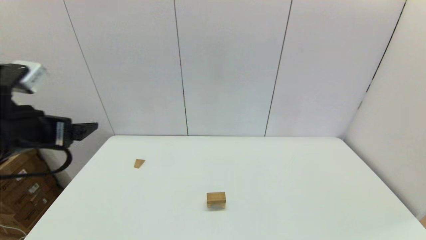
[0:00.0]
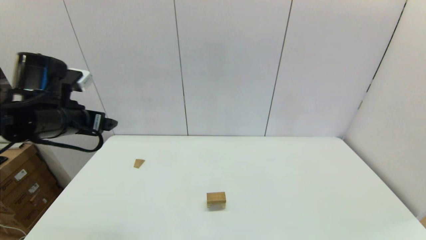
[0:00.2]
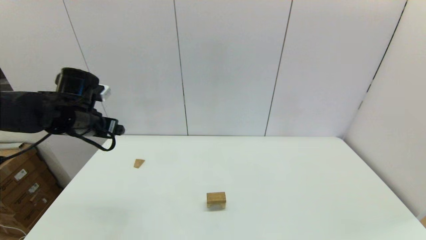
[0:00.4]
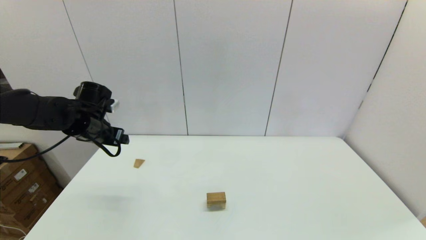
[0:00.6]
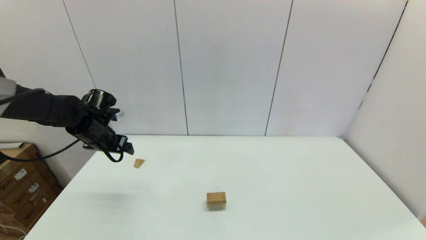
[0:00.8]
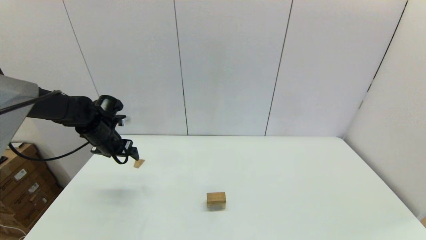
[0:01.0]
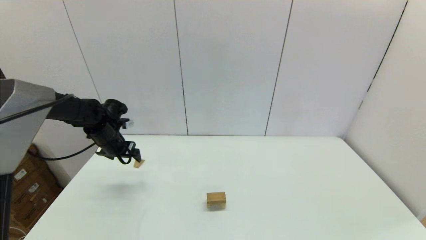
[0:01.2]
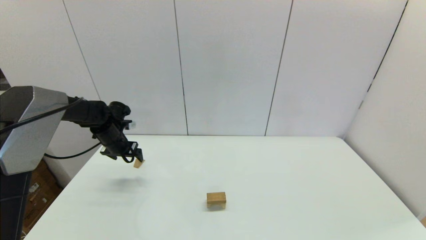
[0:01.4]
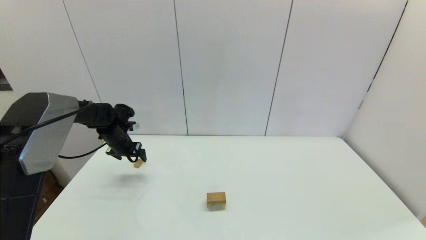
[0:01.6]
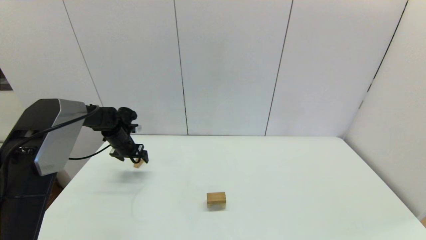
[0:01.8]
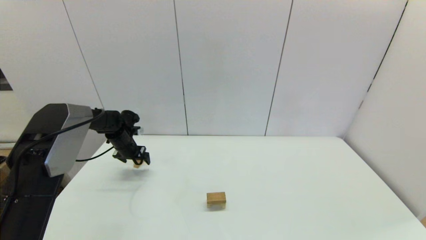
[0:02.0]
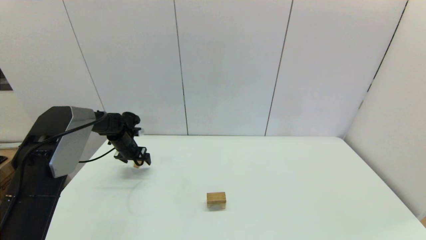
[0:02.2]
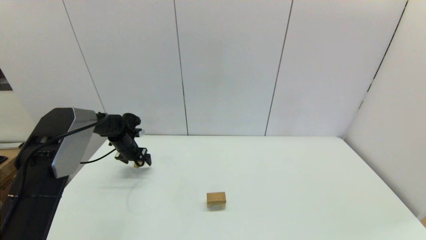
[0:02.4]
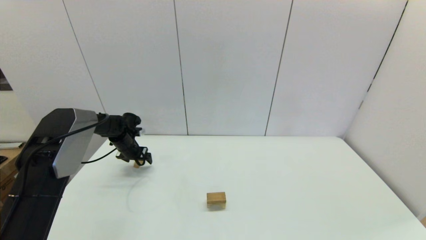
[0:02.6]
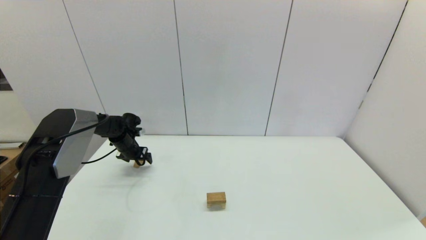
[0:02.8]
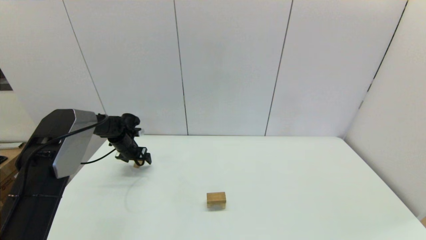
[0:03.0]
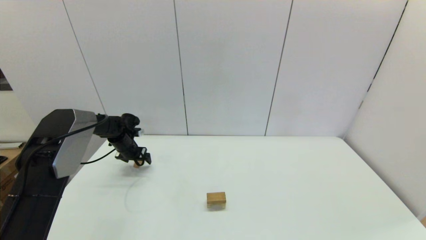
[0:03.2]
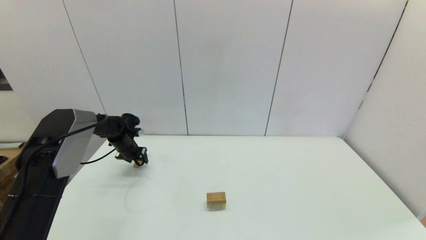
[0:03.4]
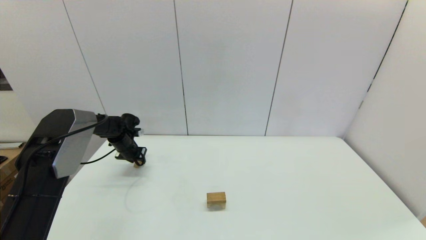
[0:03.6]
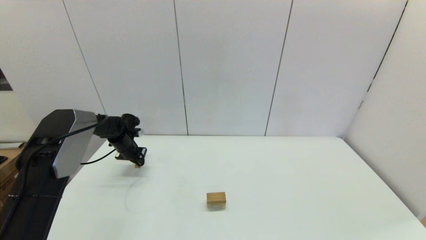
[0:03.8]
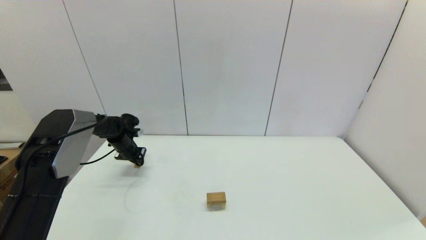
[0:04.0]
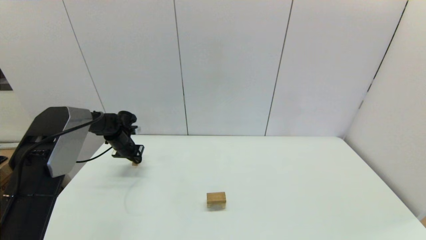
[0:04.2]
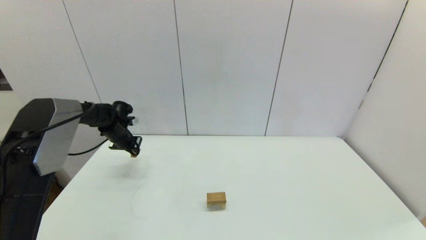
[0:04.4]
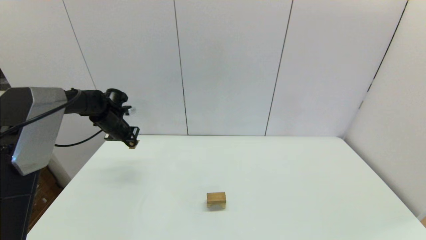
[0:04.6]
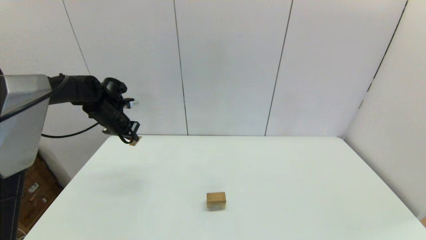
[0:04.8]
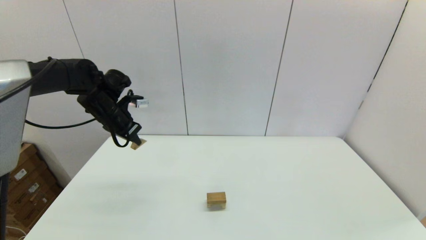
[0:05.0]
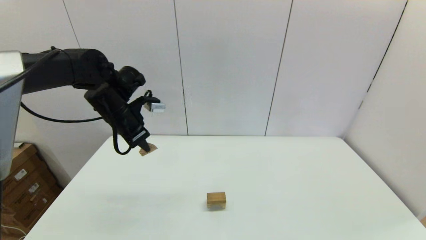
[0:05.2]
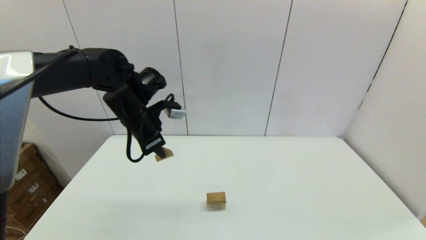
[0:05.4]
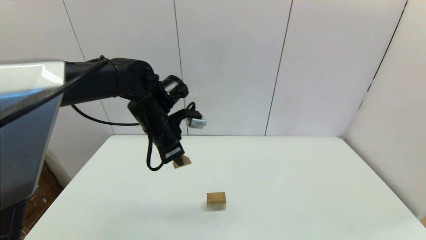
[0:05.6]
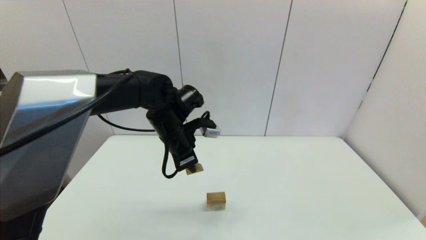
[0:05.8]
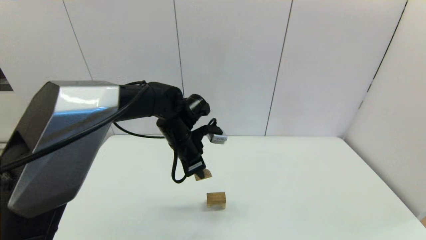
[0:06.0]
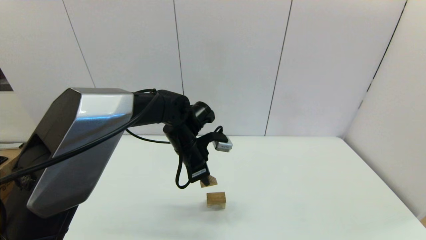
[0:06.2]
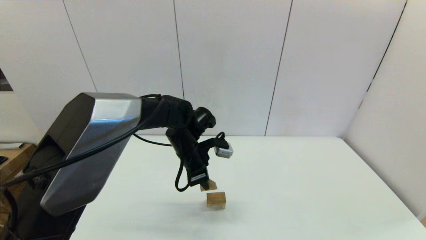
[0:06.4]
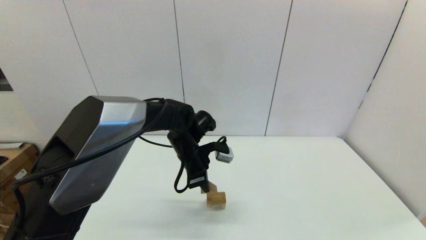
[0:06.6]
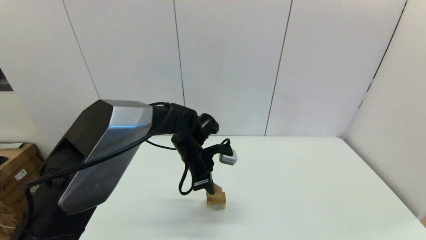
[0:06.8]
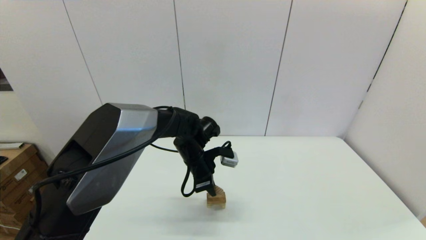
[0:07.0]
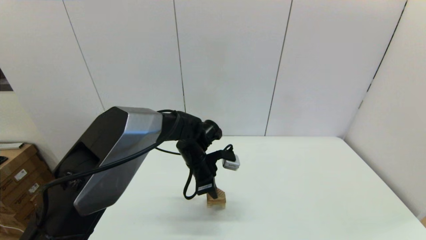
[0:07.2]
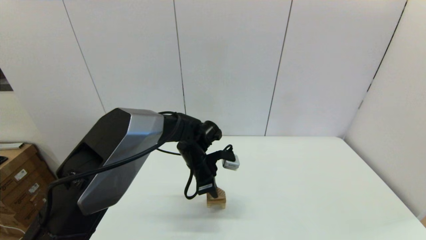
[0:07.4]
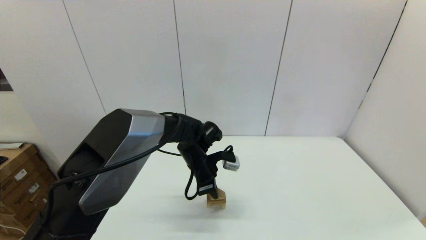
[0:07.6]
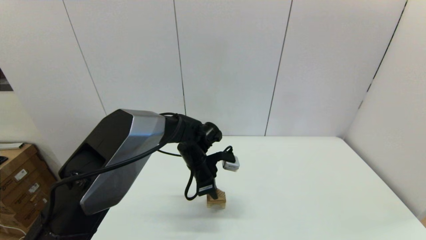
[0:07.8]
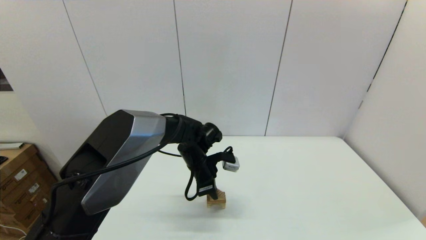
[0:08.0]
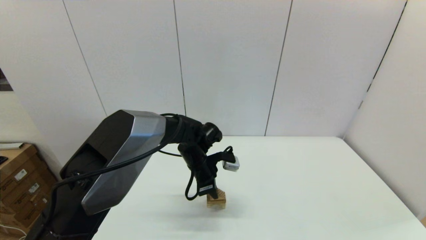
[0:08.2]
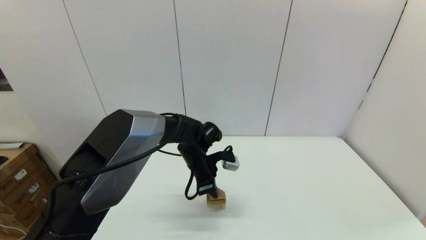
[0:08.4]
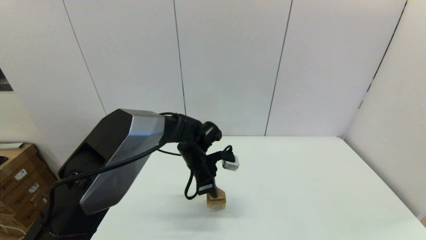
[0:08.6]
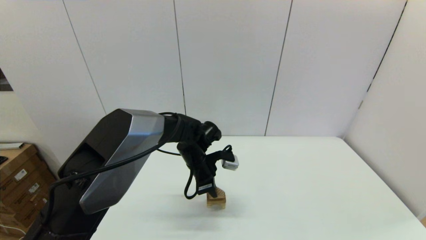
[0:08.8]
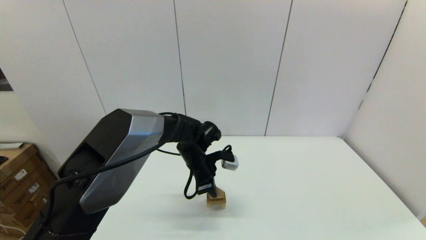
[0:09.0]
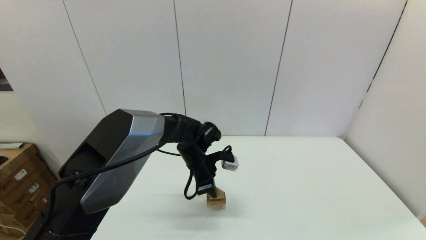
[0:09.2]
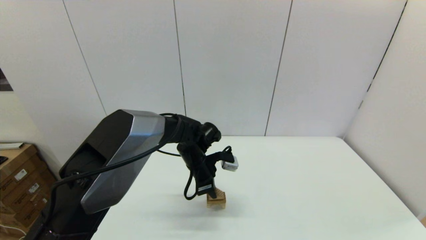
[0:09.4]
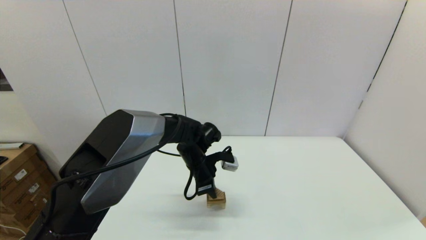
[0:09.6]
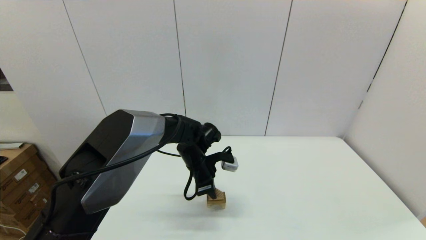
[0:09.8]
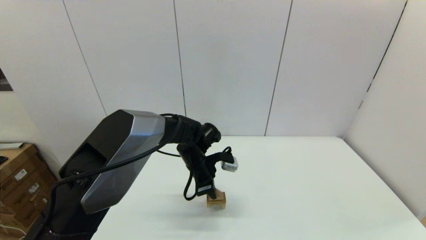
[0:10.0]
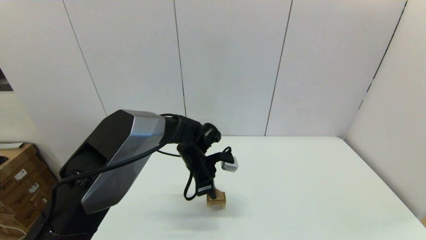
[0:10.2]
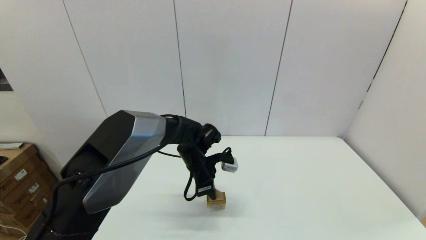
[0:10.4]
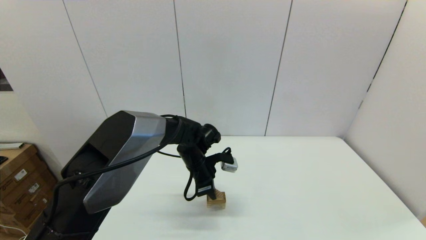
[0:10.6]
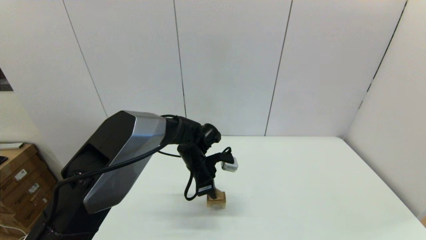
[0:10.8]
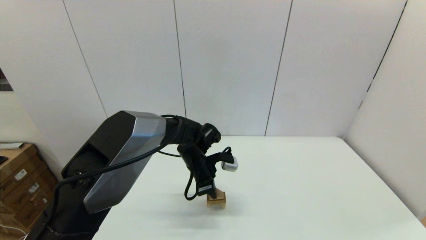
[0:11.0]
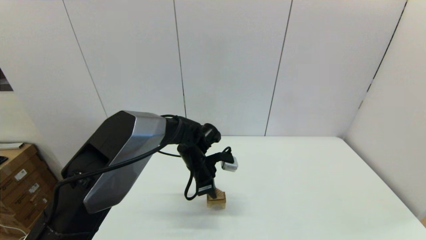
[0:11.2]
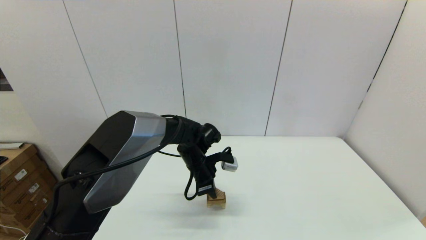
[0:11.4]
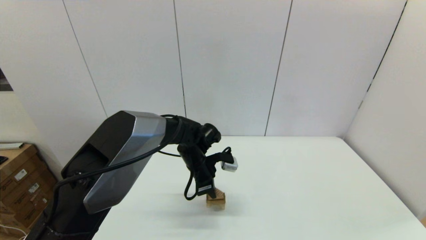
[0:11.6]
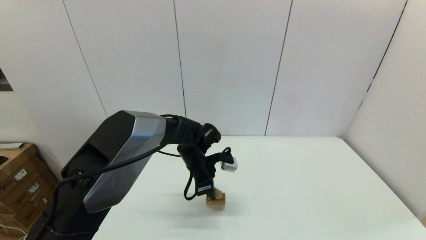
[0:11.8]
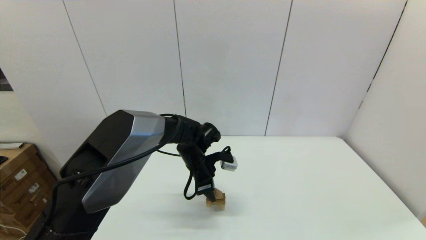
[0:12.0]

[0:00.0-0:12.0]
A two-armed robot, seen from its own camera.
Task of the whole recording: place the arched building blocks in the center of the table, set up the rectangular building blocks, and then set up the triangular building blocks.
Step, 0:00.0 to 0:03.6: Grasp the triangle-shaped block with the left gripper.
0:00.0 to 0:01.6: The left gripper shifts roughly 30 cm forward and downward.
0:01.6 to 0:03.0: The left gripper travels downward by about 5 cm.
0:03.0 to 0:04.4: The left gripper heads upward, covering roughly 5 cm, and closes up.
0:04.4 to 0:06.0: The left gripper travels to the right and backward by roughly 25 cm.
0:06.0 to 0:07.6: The left gripper heads downward, covering some 10 cm.
0:07.6 to 0:10.4: Both grippers stay about where they are.
0:10.4 to 0:12.0: The left gripper opens its fingers.

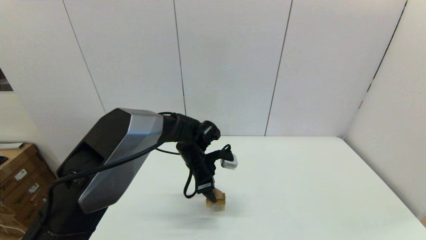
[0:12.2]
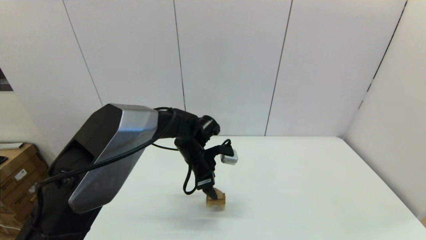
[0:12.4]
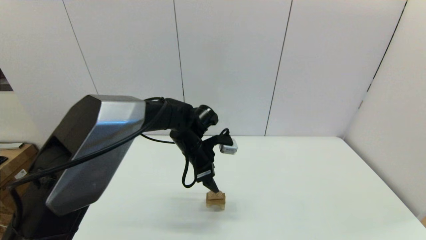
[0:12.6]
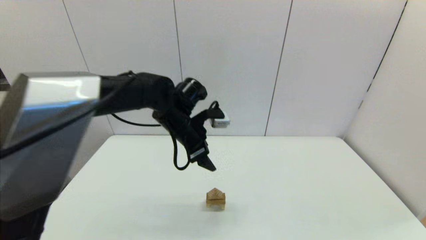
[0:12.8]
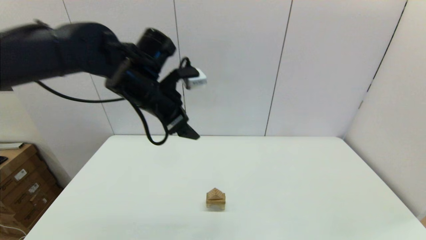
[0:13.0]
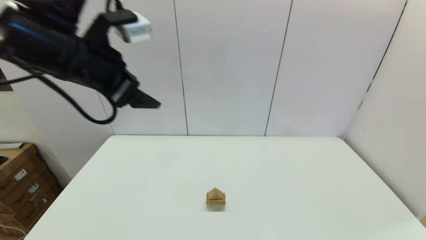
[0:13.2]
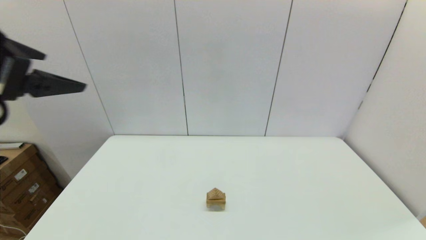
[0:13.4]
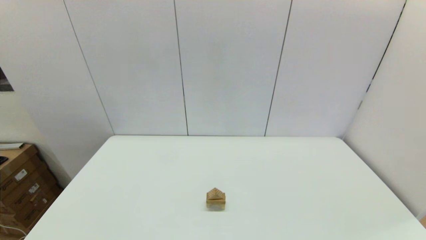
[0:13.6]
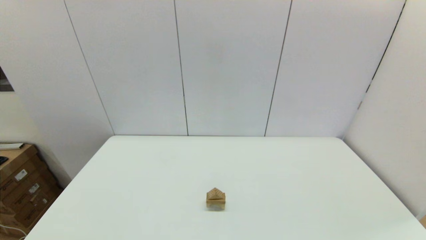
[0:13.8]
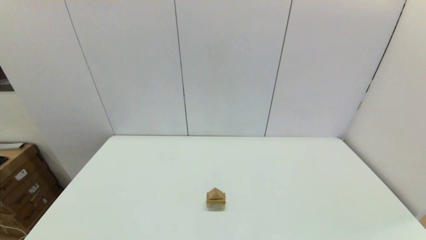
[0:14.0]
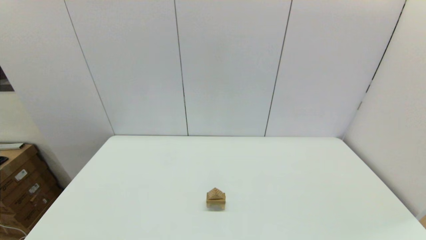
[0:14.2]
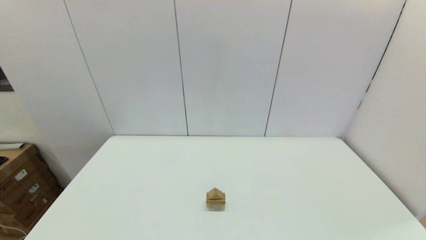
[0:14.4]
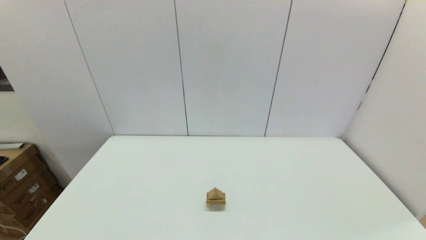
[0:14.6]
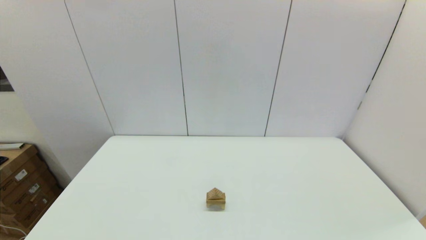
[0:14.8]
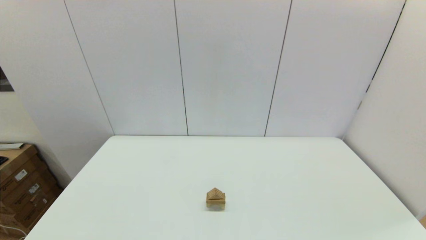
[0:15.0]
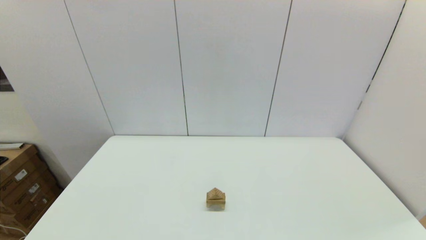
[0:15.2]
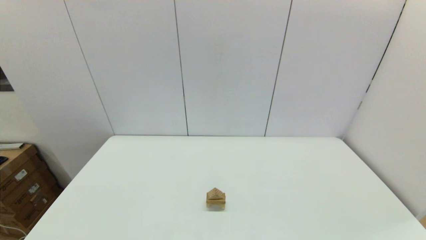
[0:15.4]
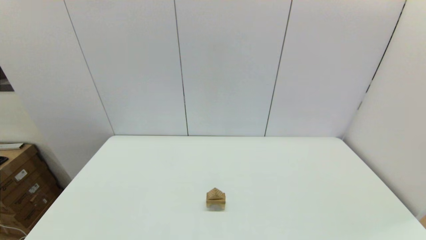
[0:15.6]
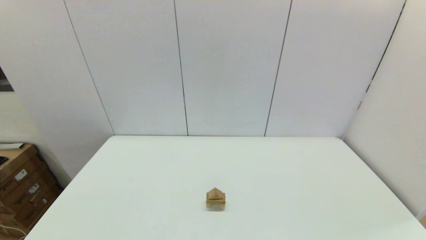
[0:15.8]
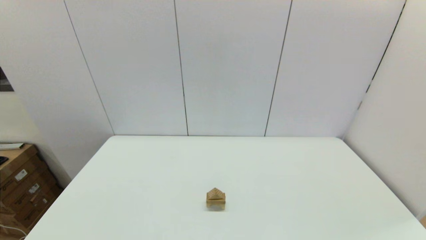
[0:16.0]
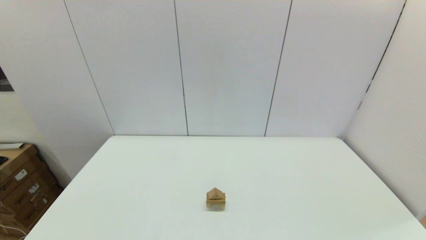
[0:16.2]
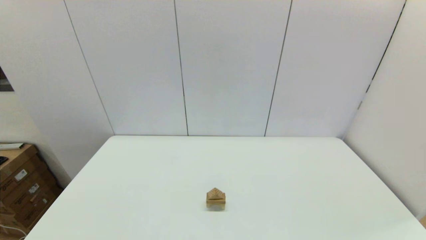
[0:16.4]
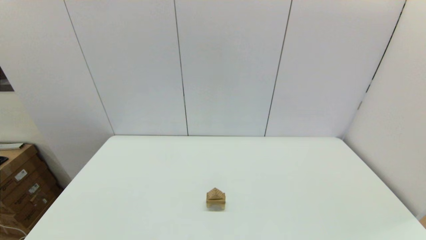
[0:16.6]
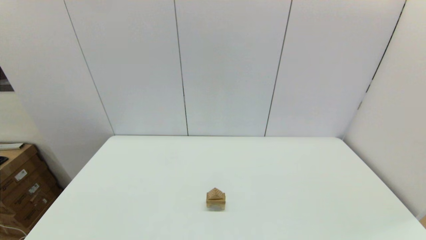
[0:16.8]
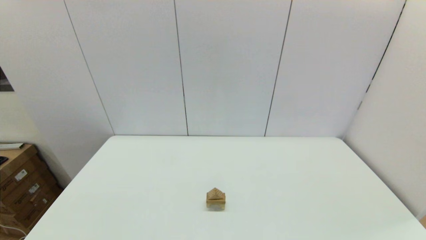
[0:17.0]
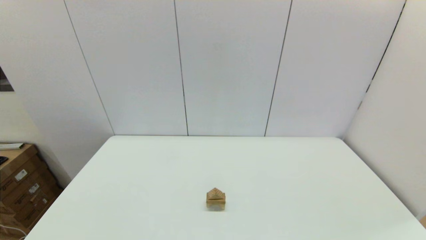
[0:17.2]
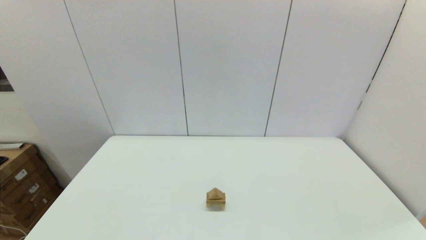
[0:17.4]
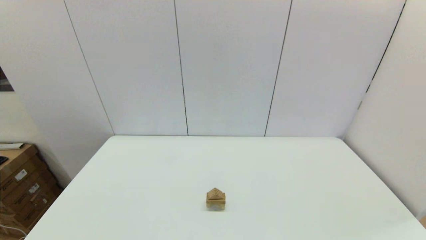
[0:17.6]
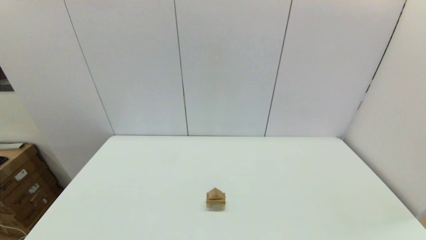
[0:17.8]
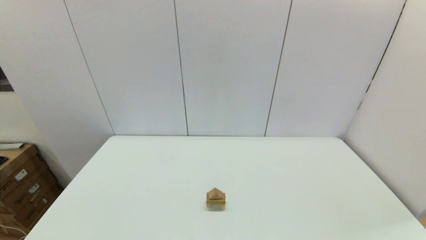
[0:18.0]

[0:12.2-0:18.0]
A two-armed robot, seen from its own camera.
Task of the whole recording: place the arched building blocks in the center of the table, set up the rectangular building blocks, and then set up the triangular building blocks.
0:12.2 to 0:13.6: The left gripper goes about 50 cm backward, upward and to the left.
0:16.6 to 0:18.0: Both grippers stay about where they are.
